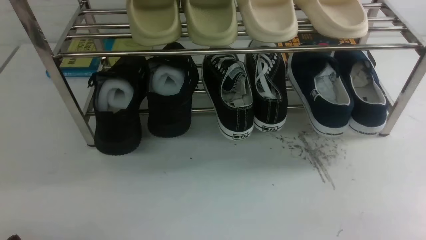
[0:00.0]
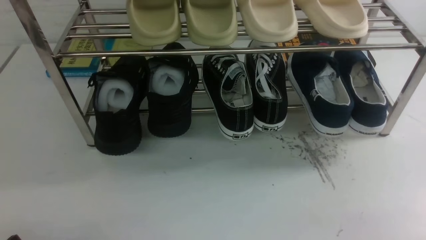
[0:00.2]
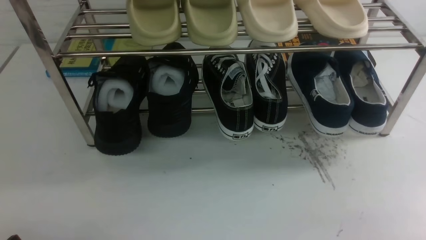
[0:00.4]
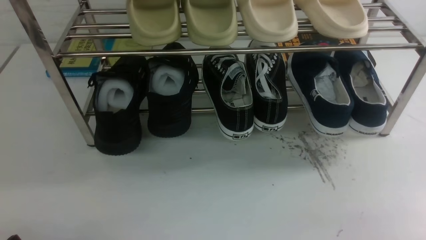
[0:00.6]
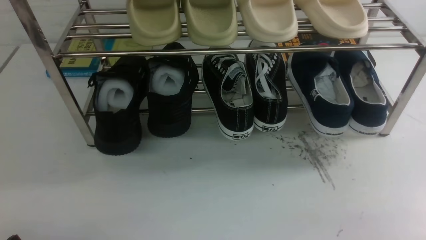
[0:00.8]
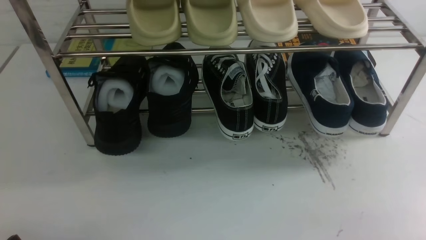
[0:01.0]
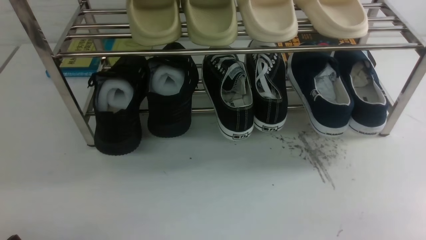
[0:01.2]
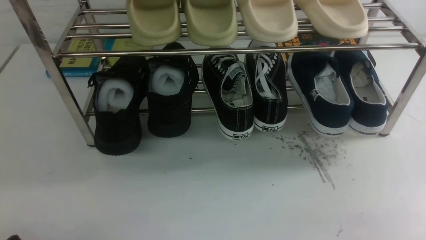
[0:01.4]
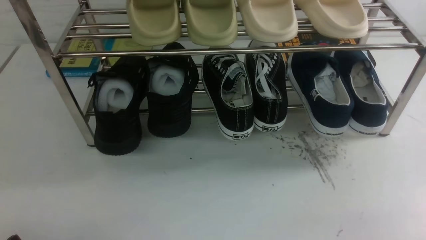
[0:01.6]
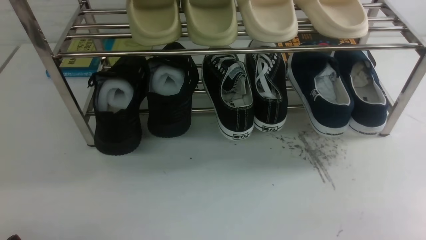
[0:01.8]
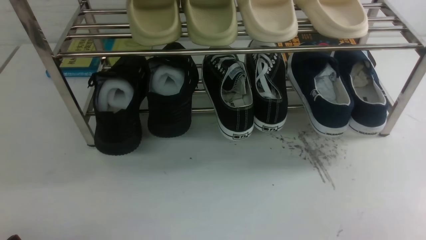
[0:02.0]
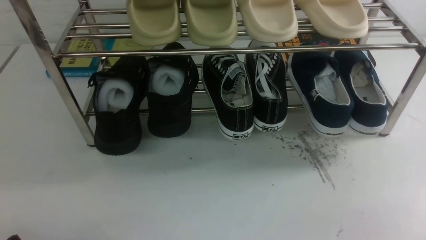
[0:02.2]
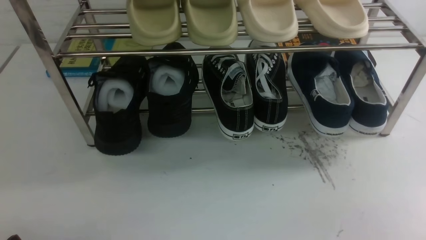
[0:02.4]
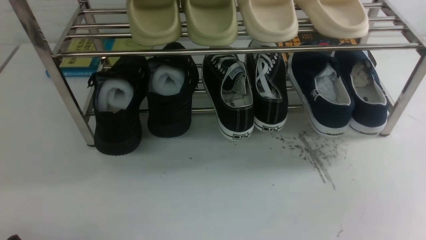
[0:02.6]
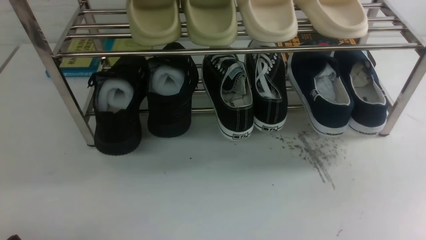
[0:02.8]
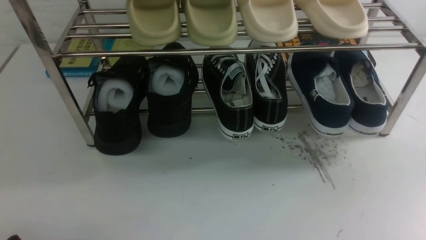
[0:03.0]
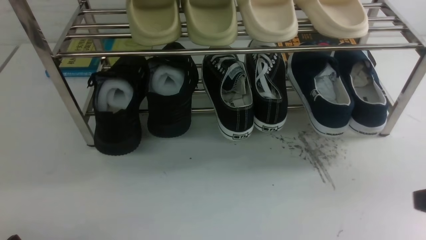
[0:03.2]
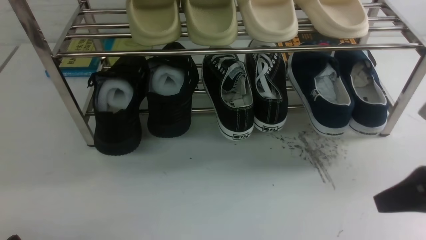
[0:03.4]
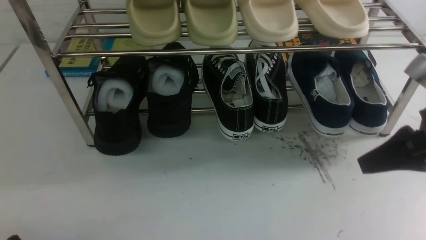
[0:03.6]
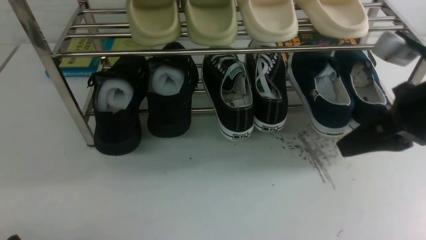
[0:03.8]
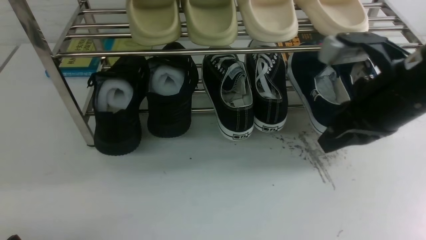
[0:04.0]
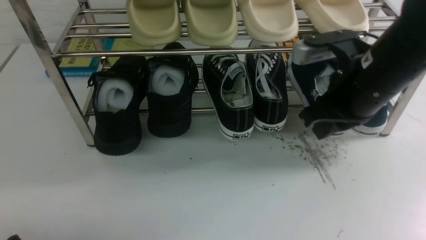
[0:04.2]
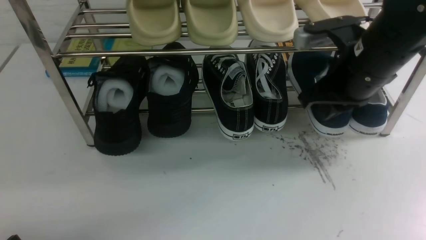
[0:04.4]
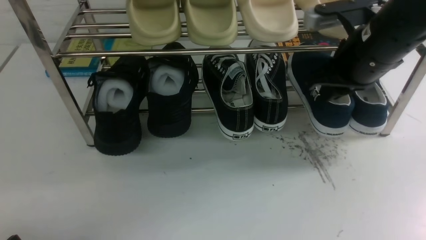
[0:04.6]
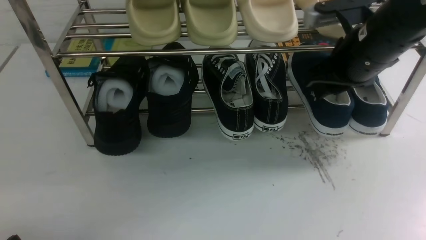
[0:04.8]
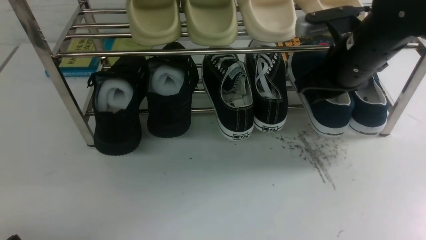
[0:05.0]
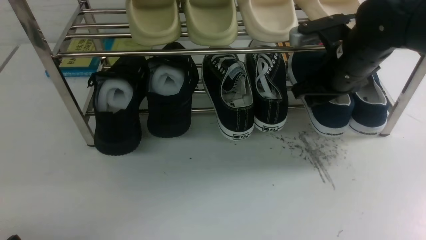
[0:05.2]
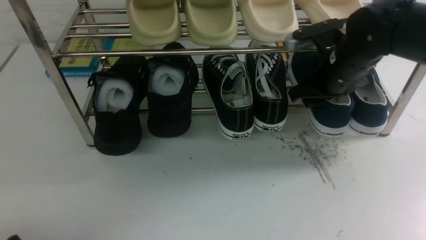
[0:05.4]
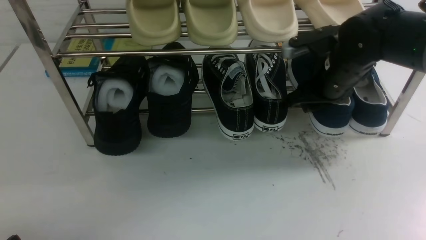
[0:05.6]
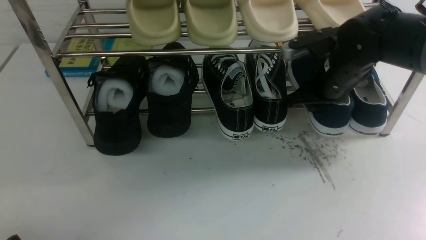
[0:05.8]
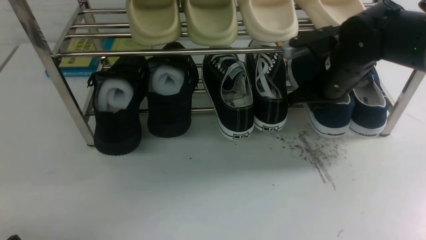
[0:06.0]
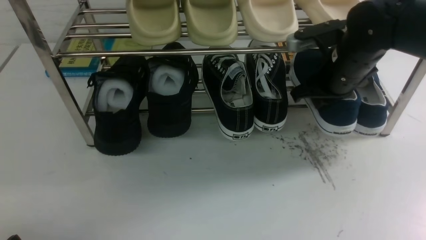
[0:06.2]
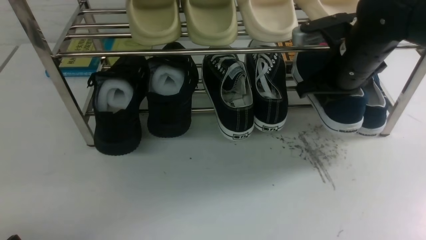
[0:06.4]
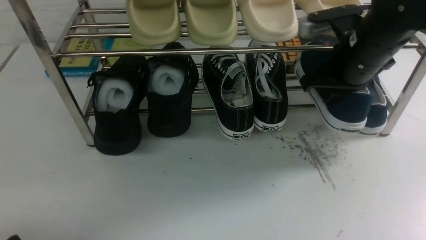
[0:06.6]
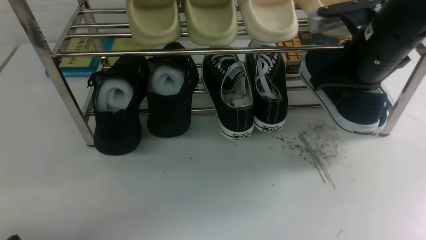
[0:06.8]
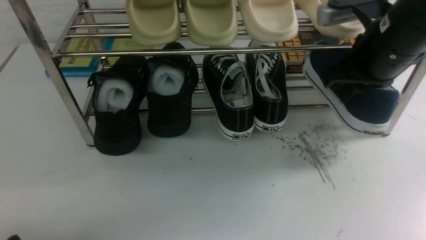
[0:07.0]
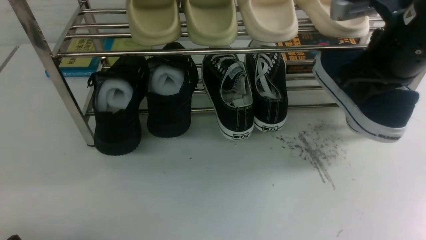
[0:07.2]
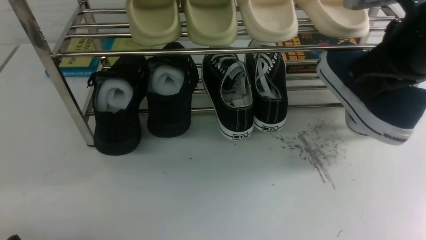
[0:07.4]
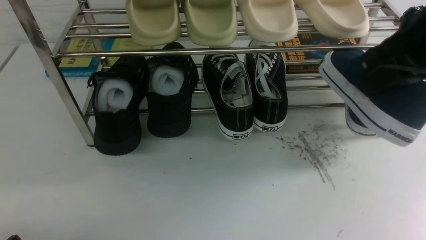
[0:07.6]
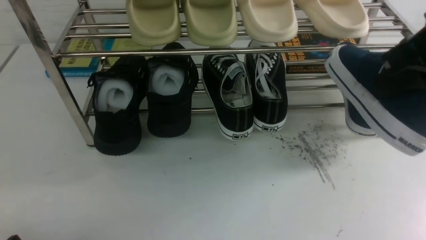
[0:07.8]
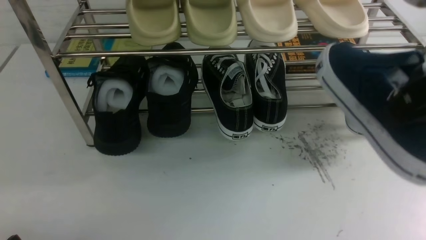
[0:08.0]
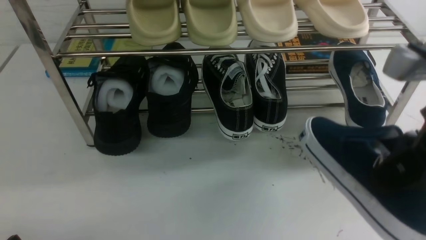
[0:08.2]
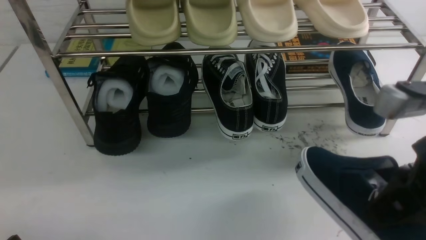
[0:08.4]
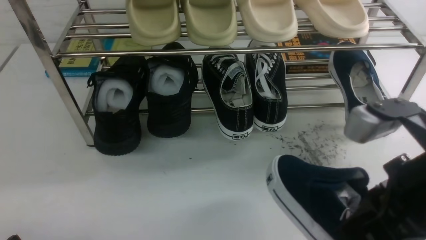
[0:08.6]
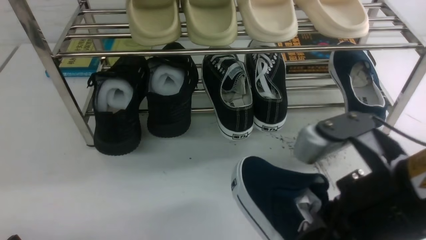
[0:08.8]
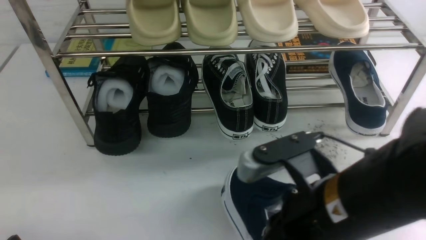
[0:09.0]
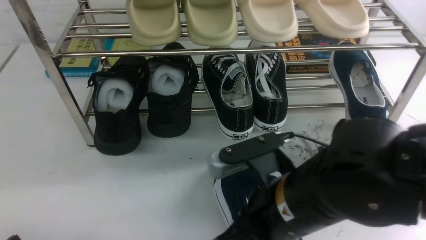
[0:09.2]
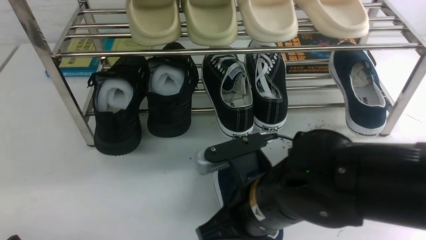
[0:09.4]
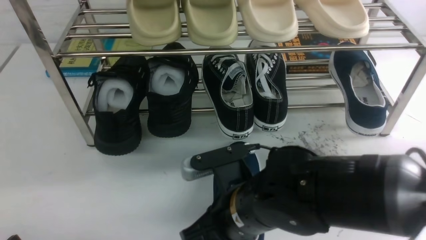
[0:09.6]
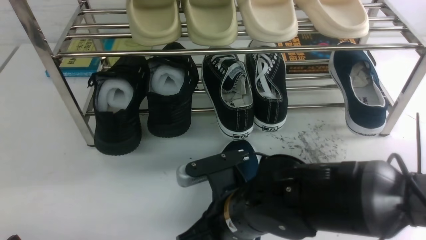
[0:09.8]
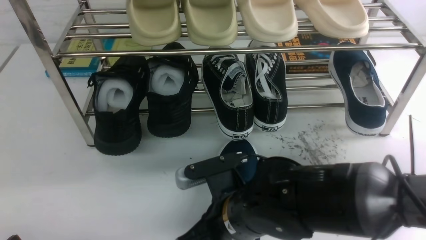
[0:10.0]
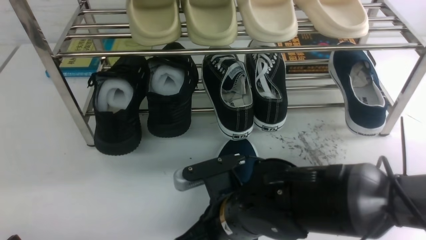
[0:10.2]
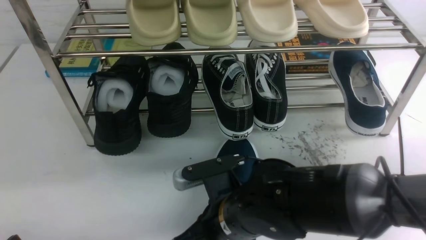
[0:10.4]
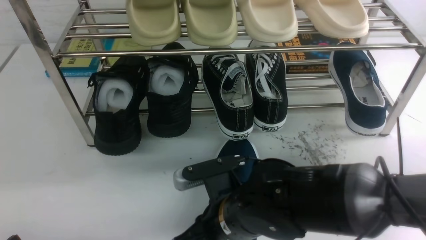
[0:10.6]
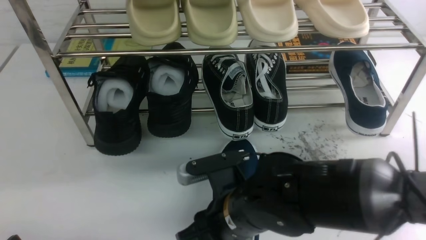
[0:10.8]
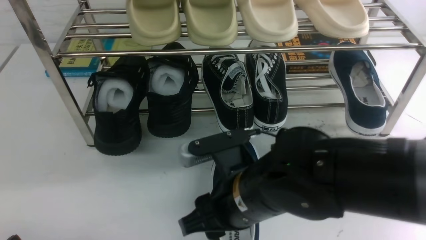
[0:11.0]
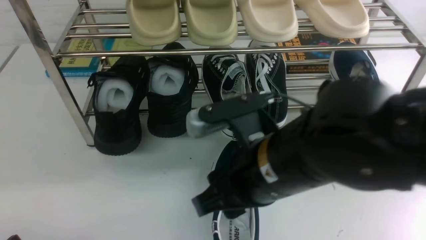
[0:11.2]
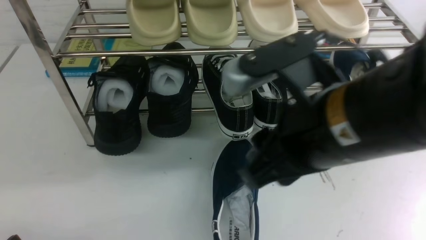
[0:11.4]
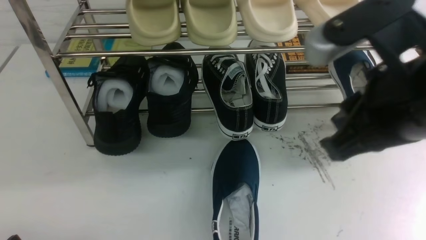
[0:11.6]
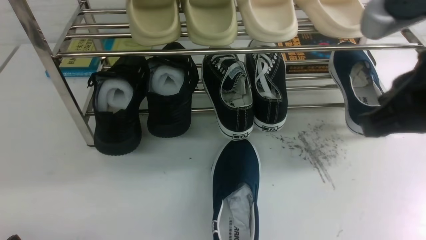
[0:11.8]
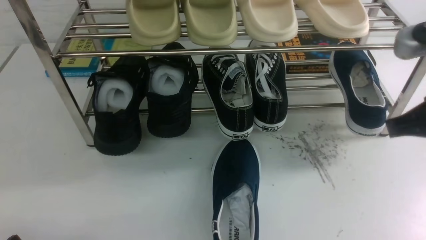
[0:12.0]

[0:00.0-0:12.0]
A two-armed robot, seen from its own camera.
Step, 0:00.0 to 0:06.4: use the right arm to clamp a shoe on the right side of the shoe rack.
Step, 0:06.6 to 0:11.0: use the right arm to take out the clamped shoe from the shoe rack and put it down.
0:00.0 to 0:01.6: Both grippers stay about where they are.
0:03.0 to 0:04.4: The right gripper is displaced forward and to the left by roughly 25 cm.
0:04.4 to 0:06.0: The right gripper moves forward and downward, some 10 cm, and opens, then closes once more.
0:06.0 to 0:07.6: The right gripper goes roughly 20 cm upward and backward.
0:07.6 to 0:09.0: The right gripper shifts about 20 cm downward, to the left and backward.
0:09.0 to 0:10.4: The right gripper moves downward and to the left, approximately 15 cm.
0:10.4 to 0:12.0: The right gripper is displaced to the right and upward by some 25 cm, and opens, then closes once more.

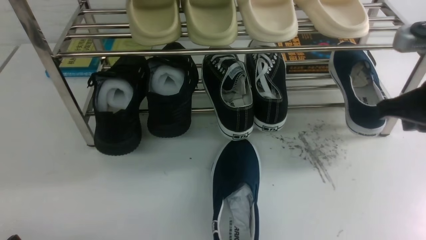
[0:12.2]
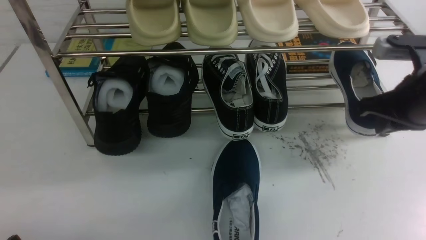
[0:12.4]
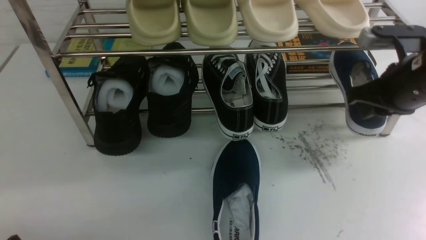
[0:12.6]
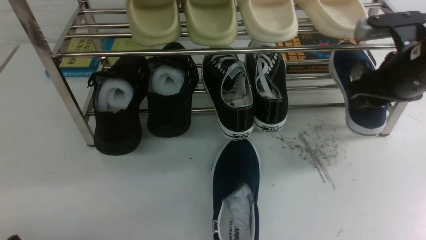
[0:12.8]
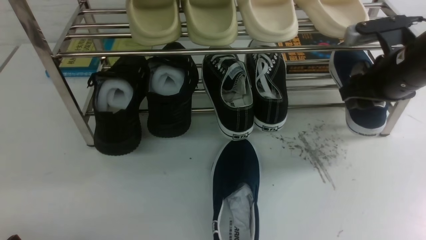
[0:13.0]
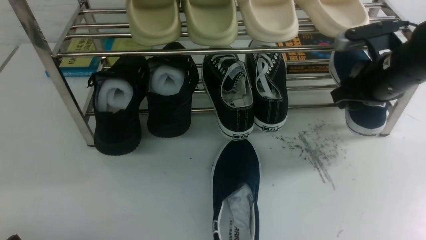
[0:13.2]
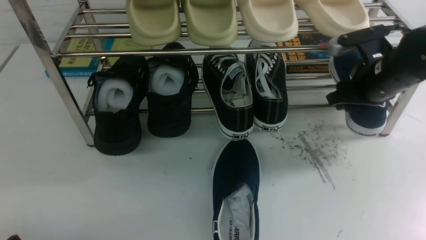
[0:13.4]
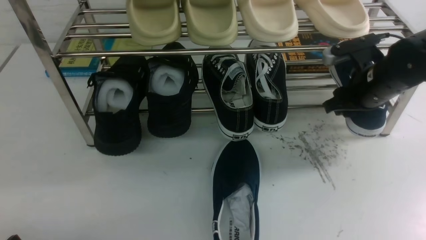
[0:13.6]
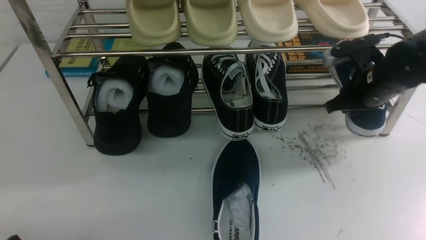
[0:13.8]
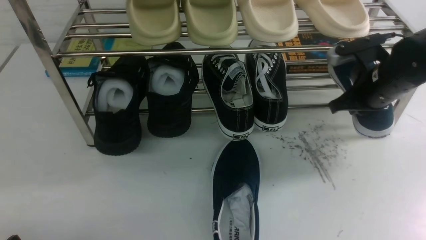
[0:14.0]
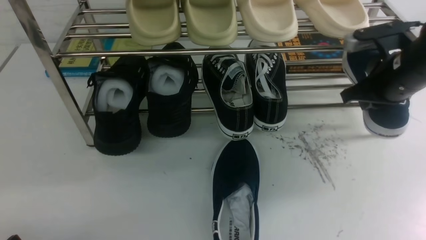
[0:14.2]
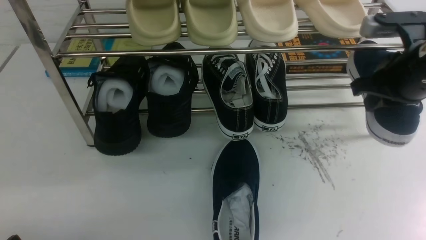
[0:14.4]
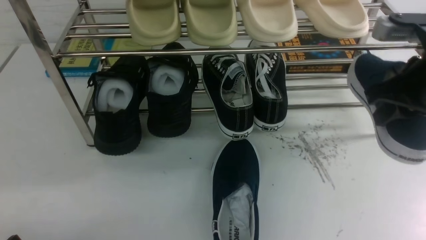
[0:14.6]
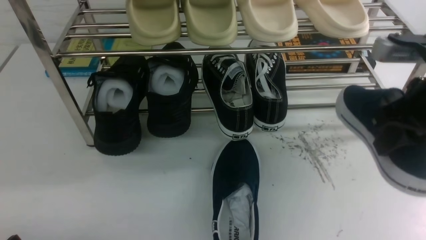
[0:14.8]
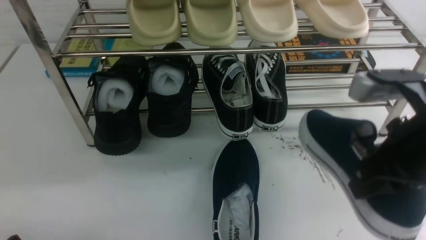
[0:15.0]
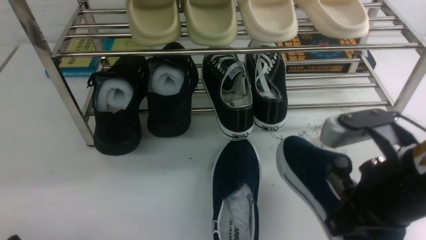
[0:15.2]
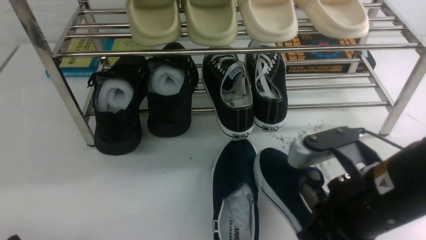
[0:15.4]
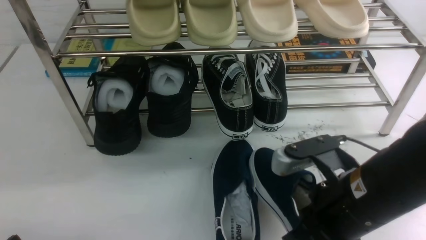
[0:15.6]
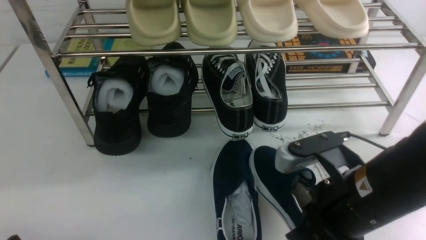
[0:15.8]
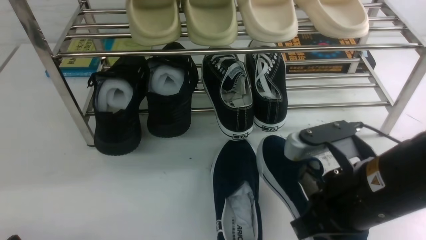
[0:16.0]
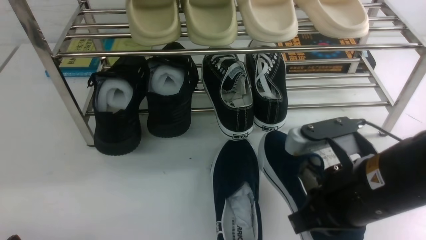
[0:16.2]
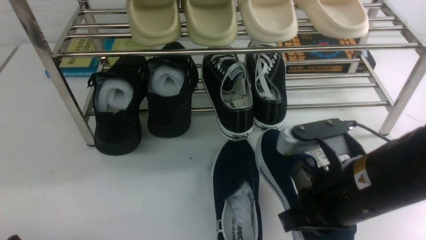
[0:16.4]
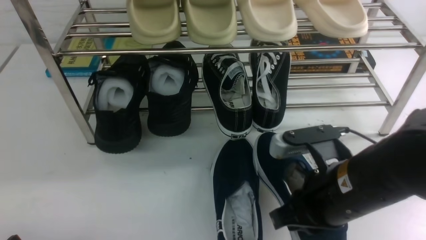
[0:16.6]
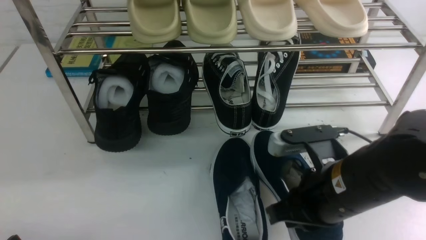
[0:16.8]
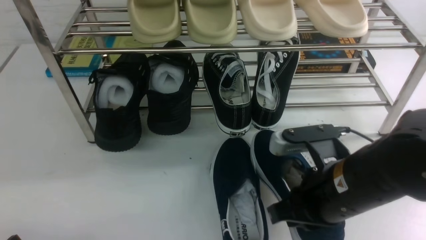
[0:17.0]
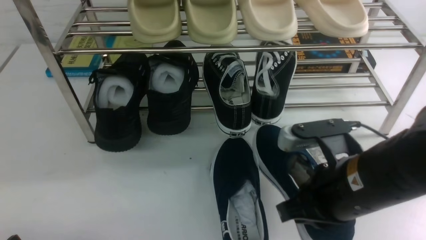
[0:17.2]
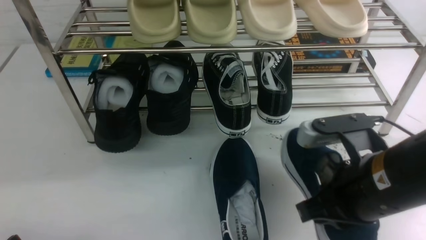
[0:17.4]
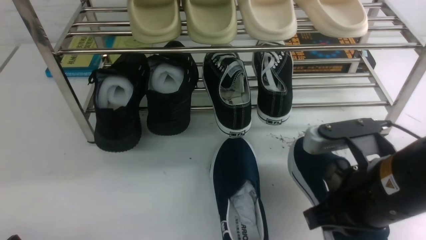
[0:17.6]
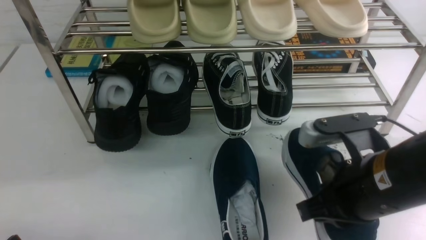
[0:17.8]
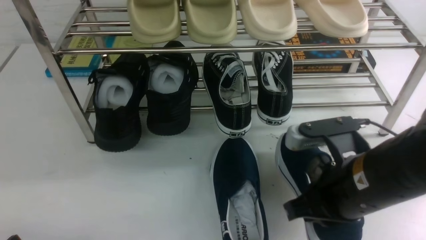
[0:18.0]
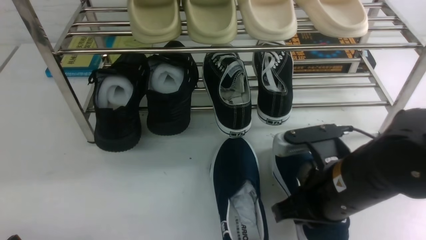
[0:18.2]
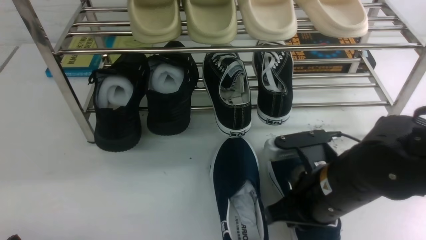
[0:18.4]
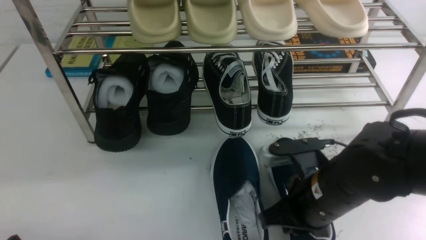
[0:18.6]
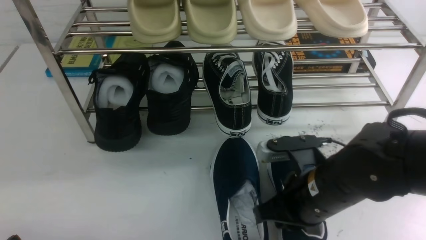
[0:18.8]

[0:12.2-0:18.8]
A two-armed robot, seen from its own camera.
Step, 0:12.2 to 0:14.4: use the right arm to clamp a shoe on the right side of the shoe rack.
0:12.2 to 0:13.8: The right gripper is displaced forward and downward by approximately 15 cm, and opens.
0:13.8 to 0:15.4: The right gripper travels backward and to the left by roughly 25 cm.
0:17.2 to 0:18.8: The right gripper heads downward, covering approximately 5 cm.
